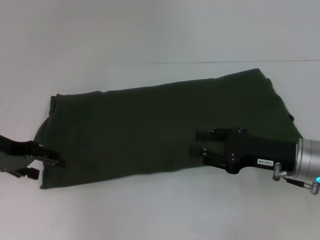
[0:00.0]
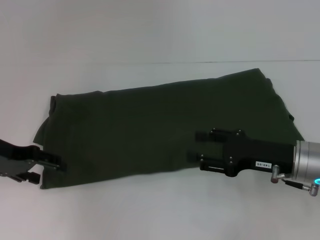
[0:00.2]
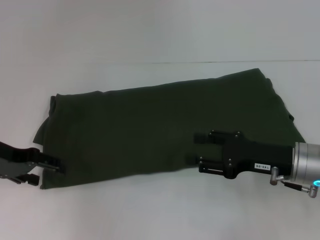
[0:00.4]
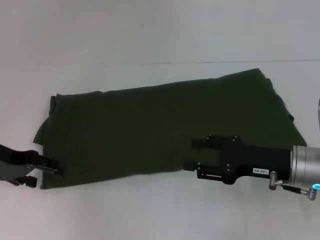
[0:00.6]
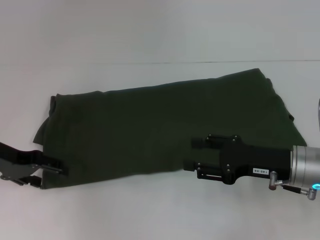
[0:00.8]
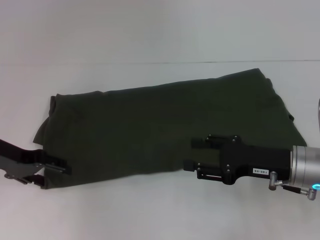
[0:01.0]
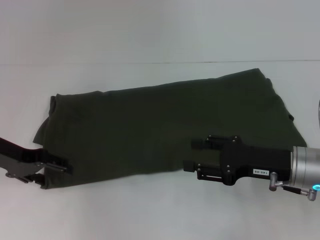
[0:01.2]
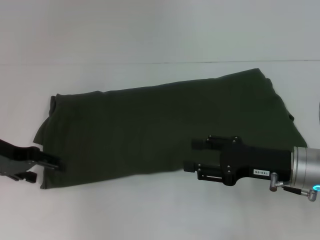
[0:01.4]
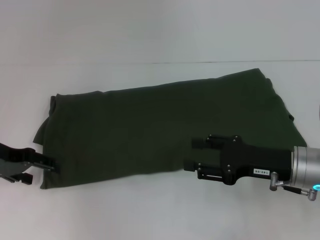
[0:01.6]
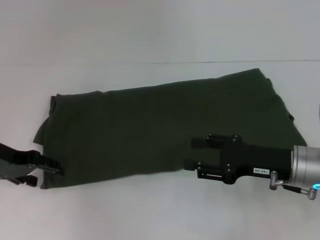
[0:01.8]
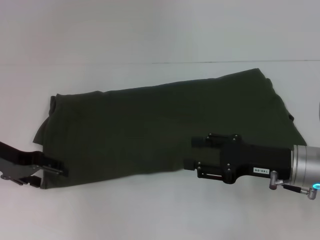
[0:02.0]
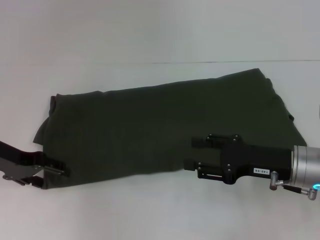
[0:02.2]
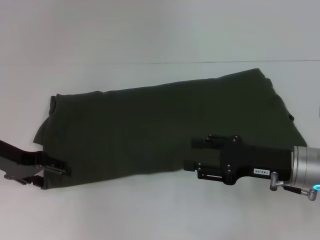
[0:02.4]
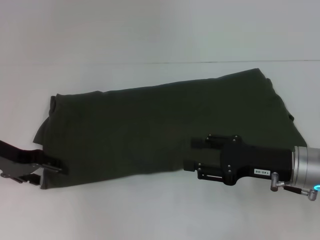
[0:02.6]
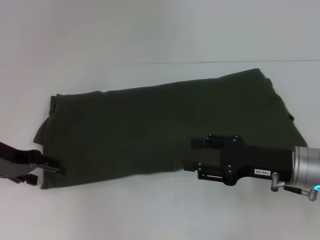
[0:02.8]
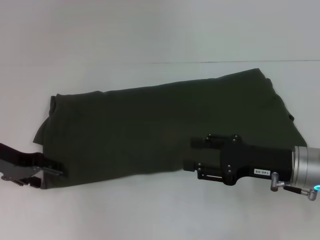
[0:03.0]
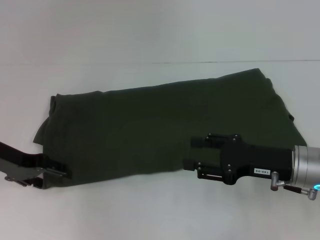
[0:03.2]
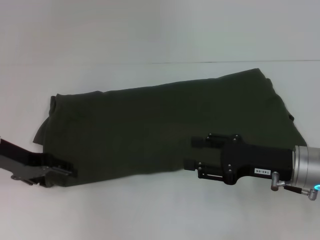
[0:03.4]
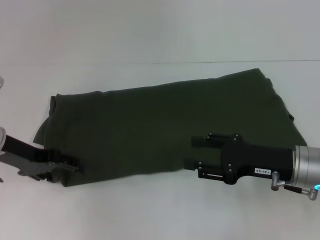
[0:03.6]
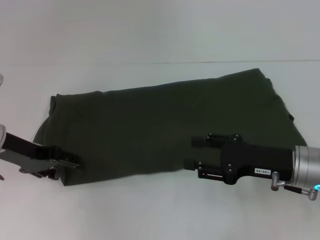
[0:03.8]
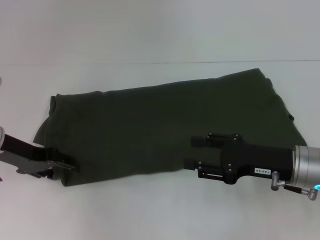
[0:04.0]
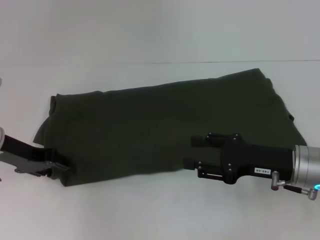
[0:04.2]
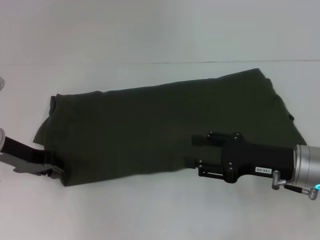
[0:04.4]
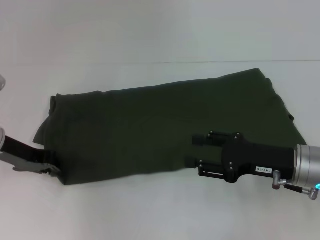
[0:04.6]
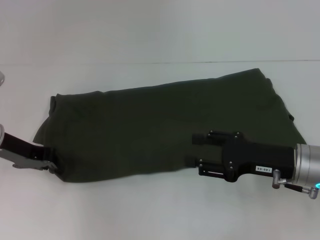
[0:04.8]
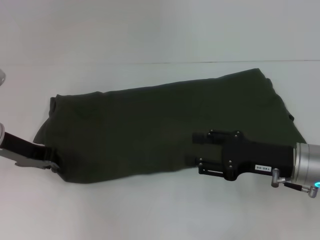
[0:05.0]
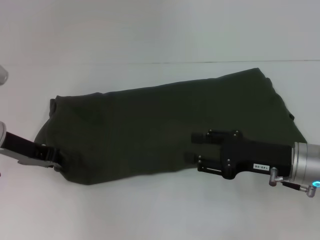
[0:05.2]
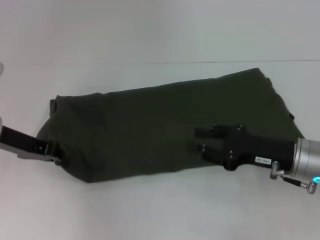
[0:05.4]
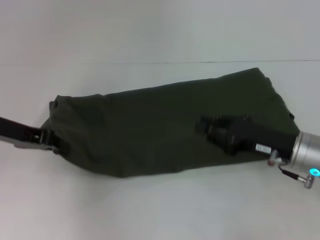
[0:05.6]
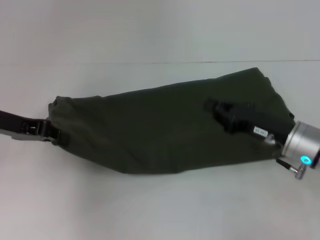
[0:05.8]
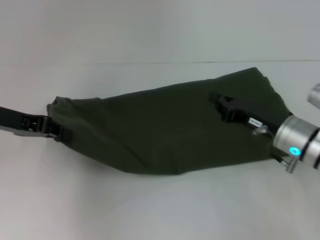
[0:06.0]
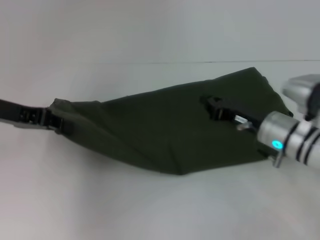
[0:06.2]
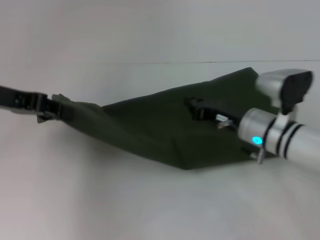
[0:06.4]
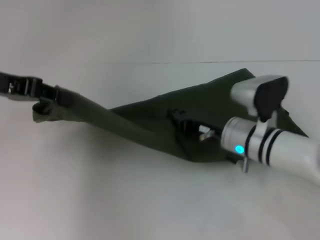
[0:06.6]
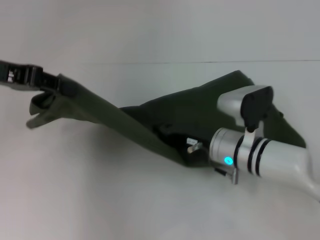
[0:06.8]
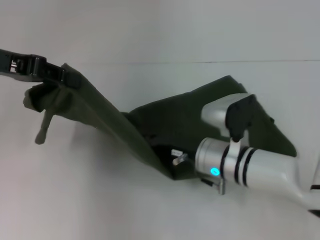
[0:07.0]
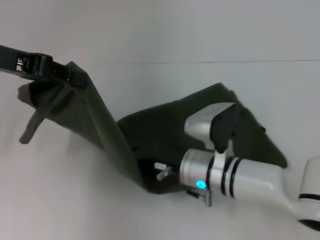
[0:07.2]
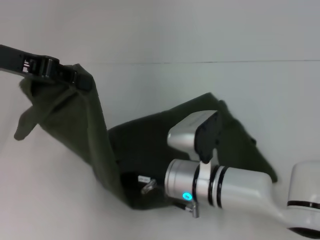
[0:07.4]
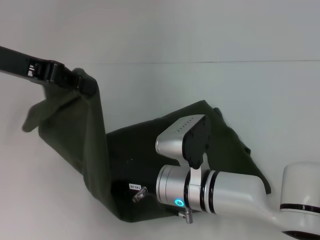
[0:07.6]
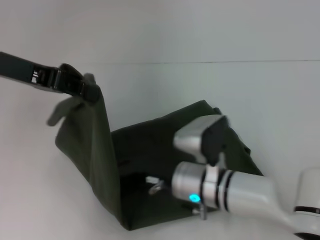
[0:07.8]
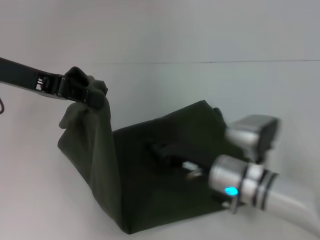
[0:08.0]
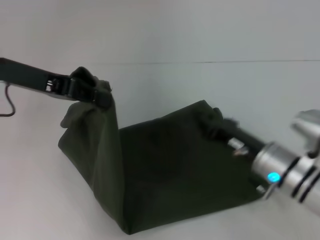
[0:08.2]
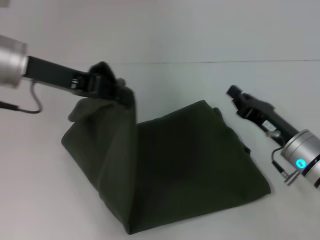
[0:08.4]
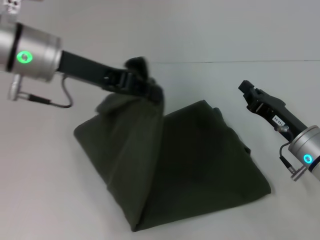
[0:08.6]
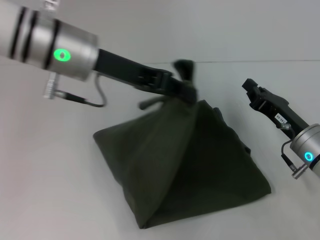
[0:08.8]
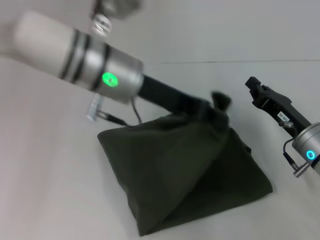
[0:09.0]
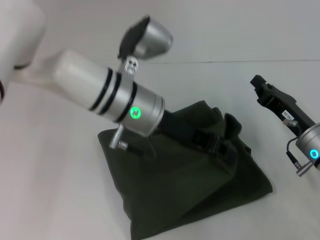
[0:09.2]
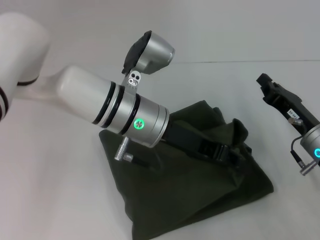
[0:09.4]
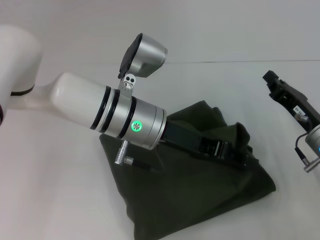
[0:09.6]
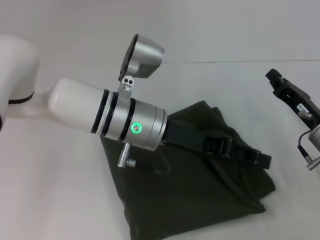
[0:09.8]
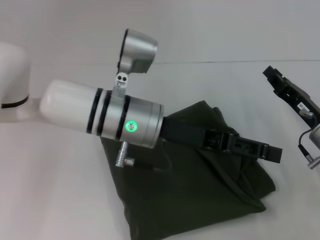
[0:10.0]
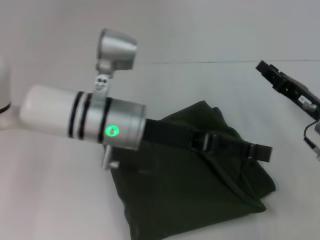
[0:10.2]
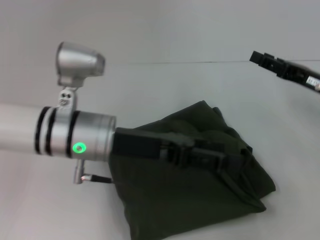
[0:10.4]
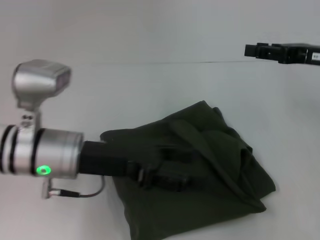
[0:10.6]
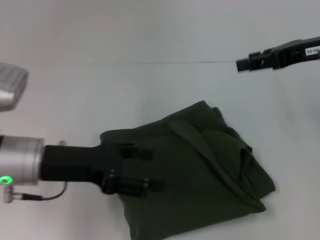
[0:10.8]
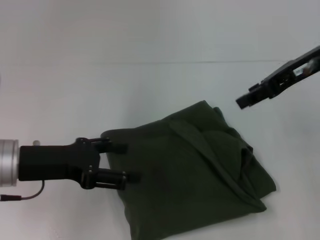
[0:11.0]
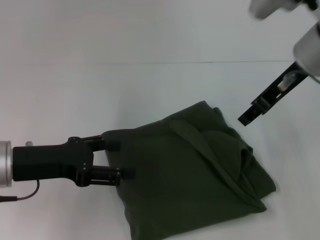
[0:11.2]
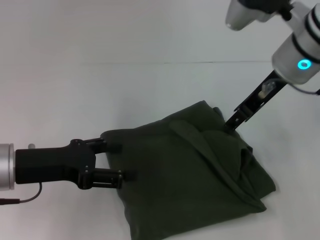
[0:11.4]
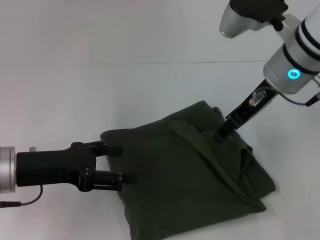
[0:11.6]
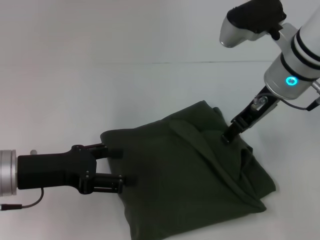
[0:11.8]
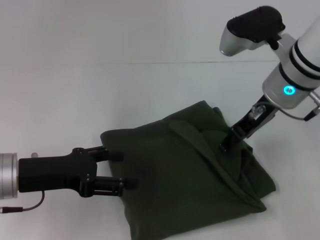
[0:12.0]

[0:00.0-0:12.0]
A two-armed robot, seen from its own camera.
Step, 0:00.0 to 0:09.6: Fold the clothes with your left hand.
0:00.0 to 0:01.6: The right gripper opens.
0:01.6 to 0:04.4: There are only small adjustments of the grippers.
0:04.4 to 0:06.0: The left gripper is displaced upward by about 5 cm, and closes; the right gripper closes.
0:06.0 to 0:07.6: The left gripper travels upward by approximately 10 cm; the right gripper moves to the left, roughly 20 cm.
0:07.6 to 0:09.0: Both grippers travel together to the right, roughly 20 cm.
0:09.0 to 0:10.4: The left gripper shifts some 10 cm downward and backward, and opens up; the right gripper shifts roughly 10 cm upward and to the right, and opens.
0:10.4 to 0:12.0: The left gripper shifts approximately 10 cm to the left. The right gripper travels to the left and upward by approximately 15 cm, and opens up.

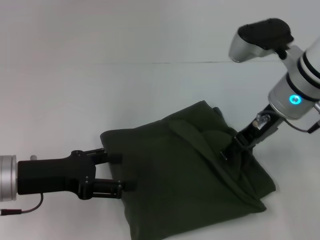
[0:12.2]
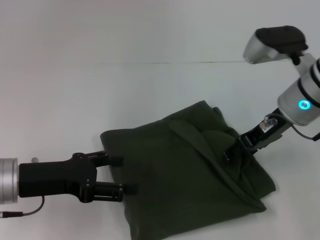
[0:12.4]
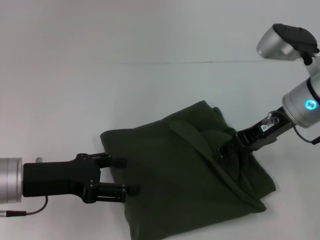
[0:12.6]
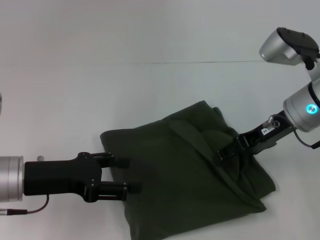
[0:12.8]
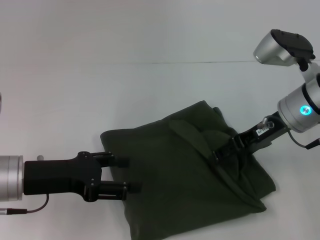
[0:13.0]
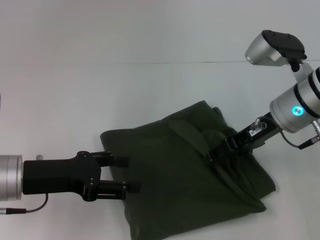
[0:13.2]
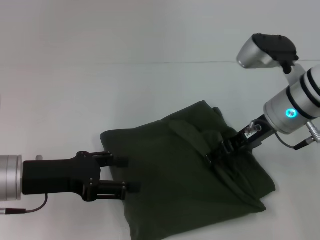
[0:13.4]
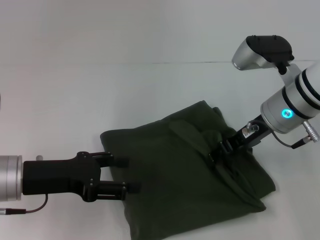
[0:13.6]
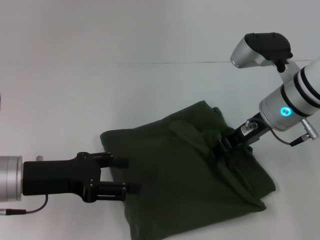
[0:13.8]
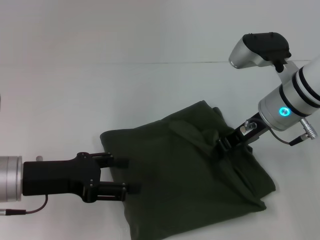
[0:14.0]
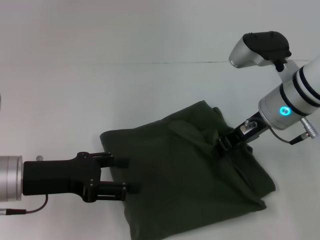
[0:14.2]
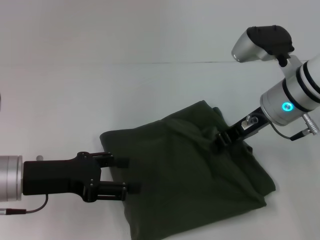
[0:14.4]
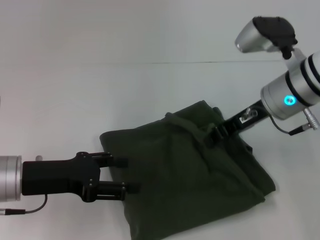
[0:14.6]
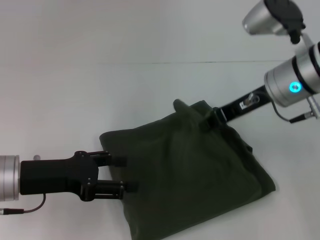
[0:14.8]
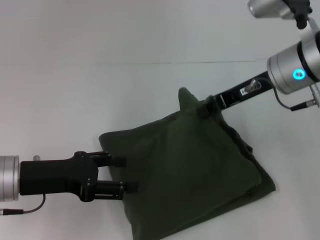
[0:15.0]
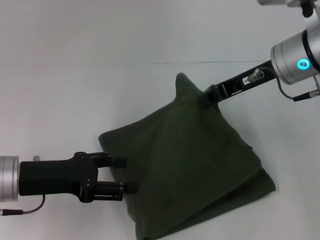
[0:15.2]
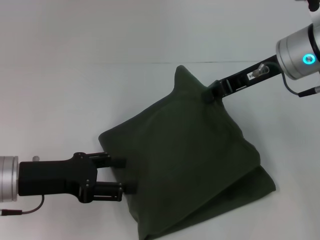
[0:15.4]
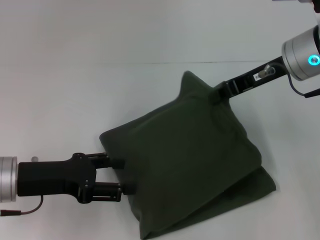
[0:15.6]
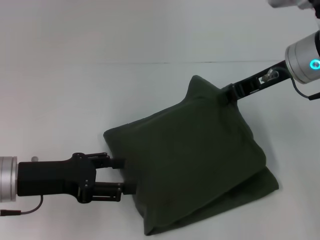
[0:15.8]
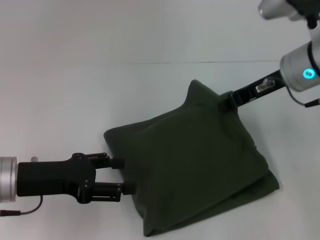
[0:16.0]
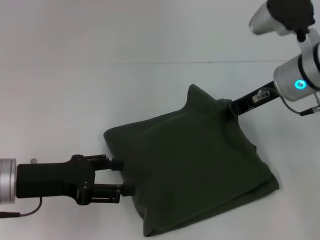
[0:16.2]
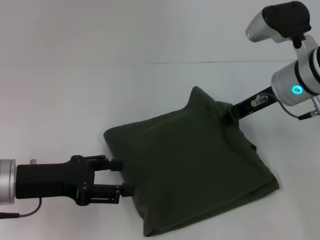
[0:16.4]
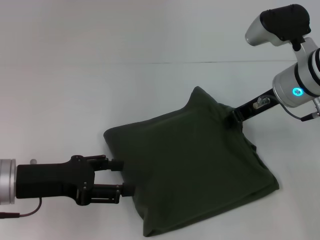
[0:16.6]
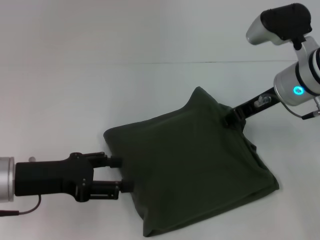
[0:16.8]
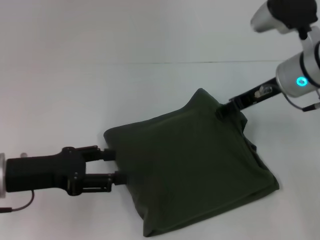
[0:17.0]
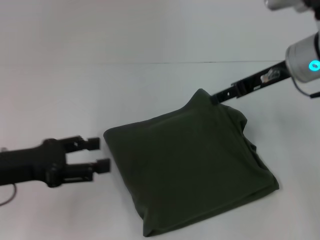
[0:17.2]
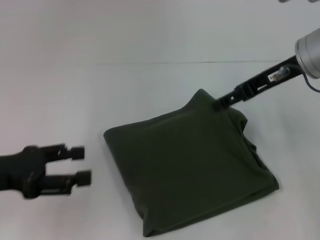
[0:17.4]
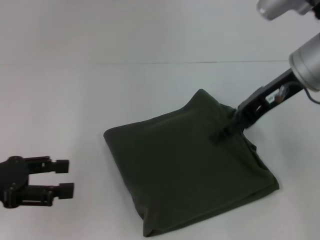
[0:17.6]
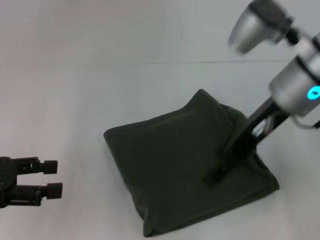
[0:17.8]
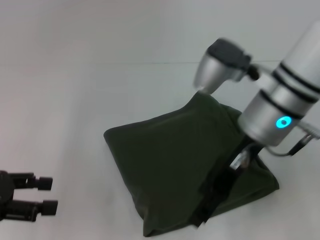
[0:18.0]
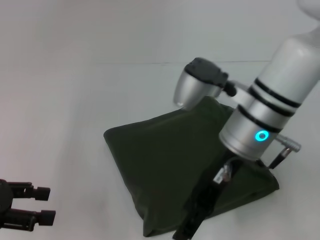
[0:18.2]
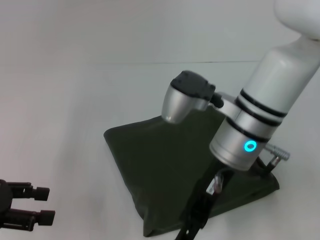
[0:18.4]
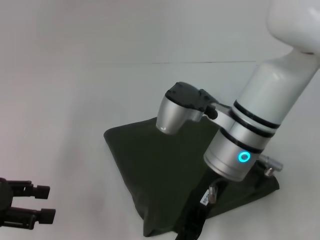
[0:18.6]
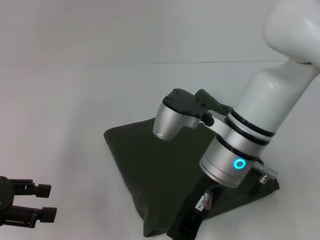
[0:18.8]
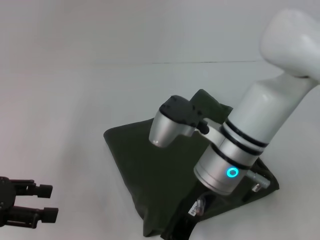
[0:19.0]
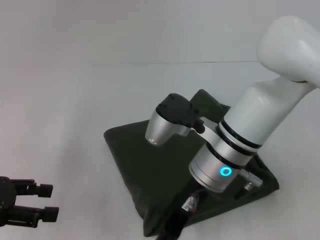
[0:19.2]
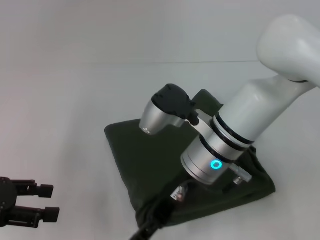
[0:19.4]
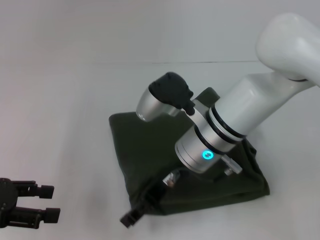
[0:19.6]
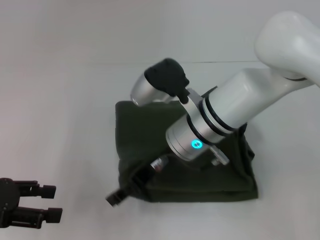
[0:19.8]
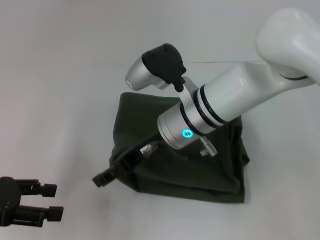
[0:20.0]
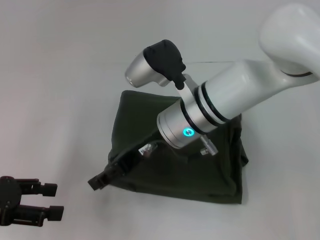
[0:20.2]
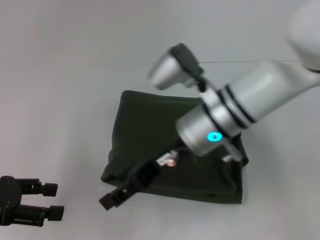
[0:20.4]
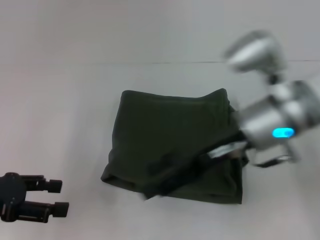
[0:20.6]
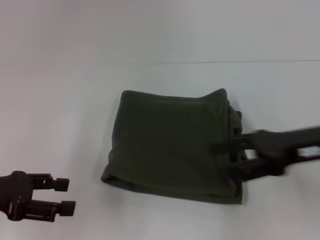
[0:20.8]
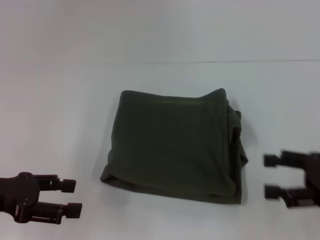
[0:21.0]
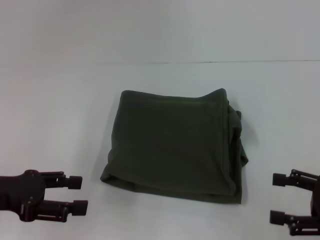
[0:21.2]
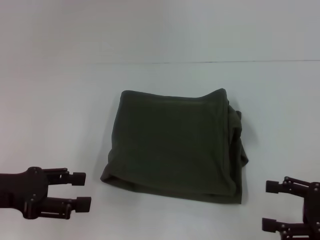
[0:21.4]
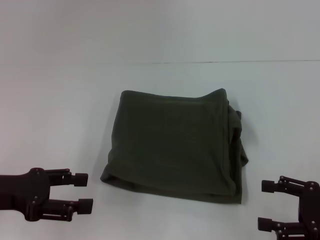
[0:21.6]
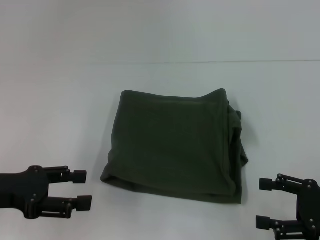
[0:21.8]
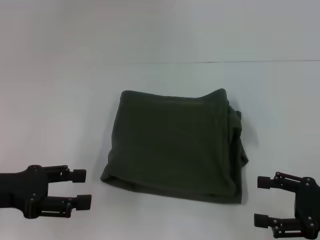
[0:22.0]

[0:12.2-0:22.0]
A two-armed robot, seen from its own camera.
0:12.2 to 0:13.6: The grippers move only a little.
0:13.6 to 0:15.0: The right gripper shifts some 5 cm upward, and closes up.
0:15.0 to 0:16.4: The grippers move only a little.
0:16.4 to 0:17.8: The left gripper travels to the left by roughly 10 cm, while the right gripper moves upward, some 5 cm, and opens.
0:17.8 to 0:19.2: The right gripper heads downward and to the left, covering approximately 15 cm.
0:19.2 to 0:20.6: The right gripper travels to the right by approximately 5 cm.
0:20.6 to 0:22.0: The right gripper moves to the right, backward and downward, approximately 25 cm.
